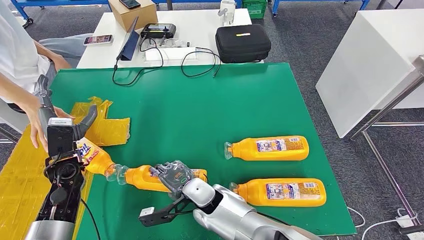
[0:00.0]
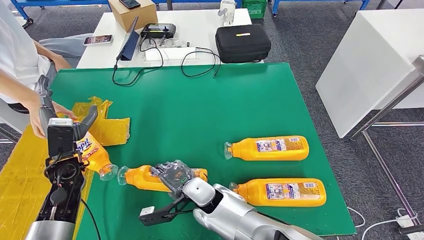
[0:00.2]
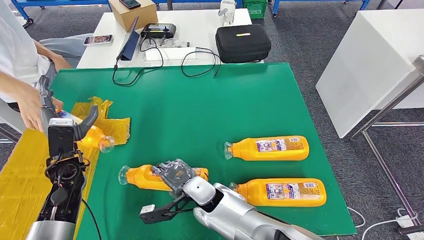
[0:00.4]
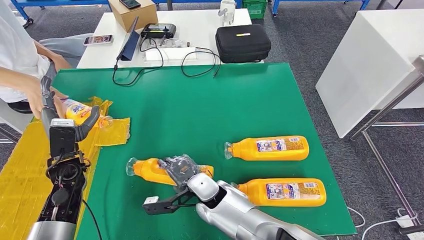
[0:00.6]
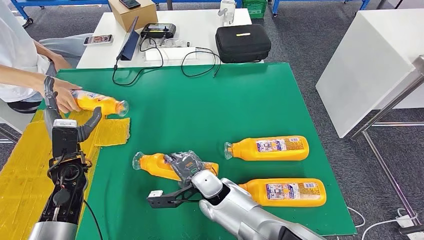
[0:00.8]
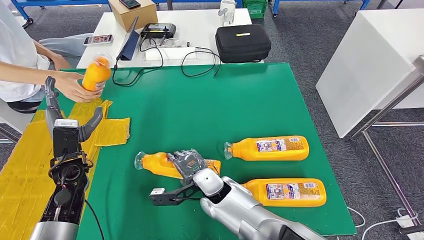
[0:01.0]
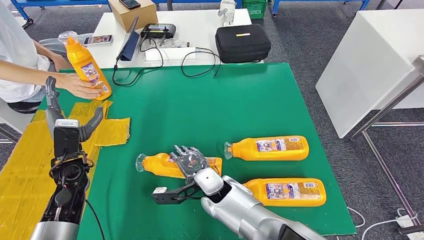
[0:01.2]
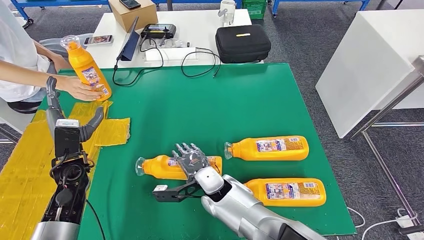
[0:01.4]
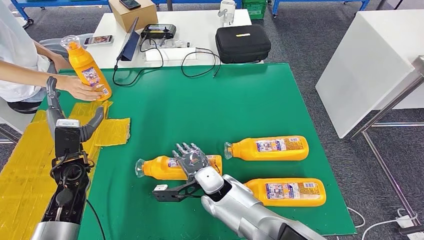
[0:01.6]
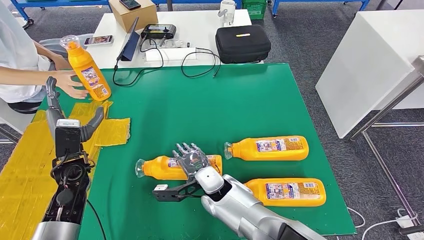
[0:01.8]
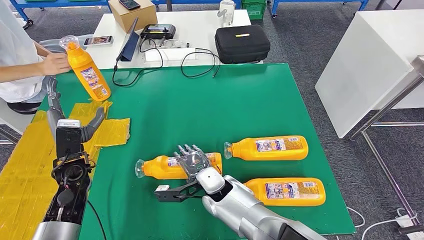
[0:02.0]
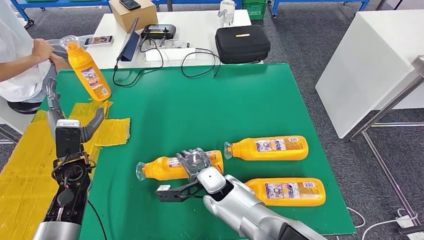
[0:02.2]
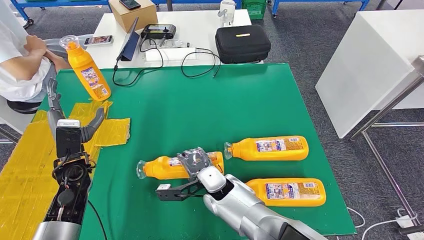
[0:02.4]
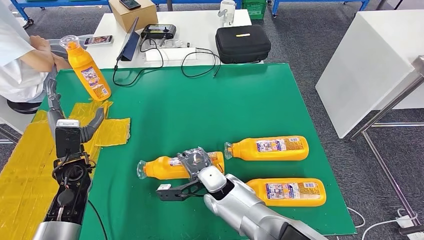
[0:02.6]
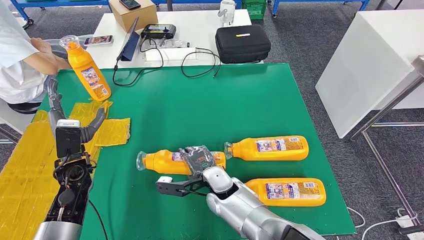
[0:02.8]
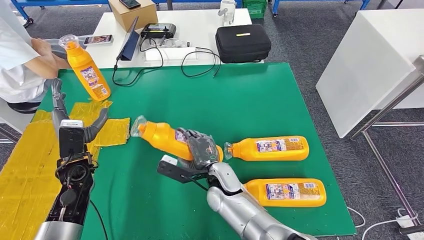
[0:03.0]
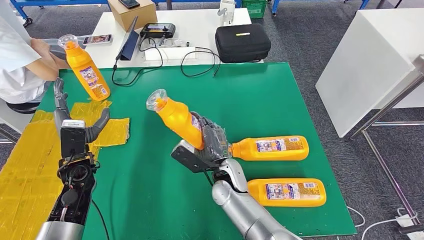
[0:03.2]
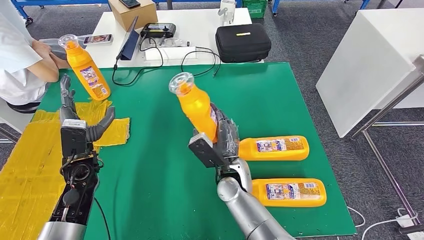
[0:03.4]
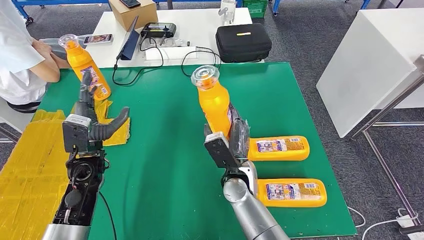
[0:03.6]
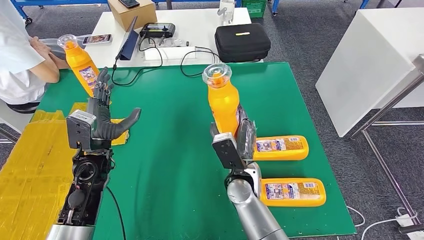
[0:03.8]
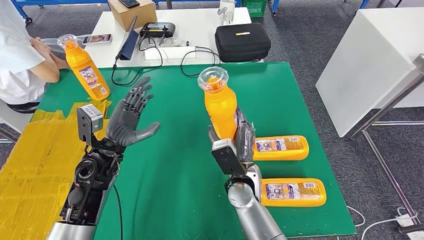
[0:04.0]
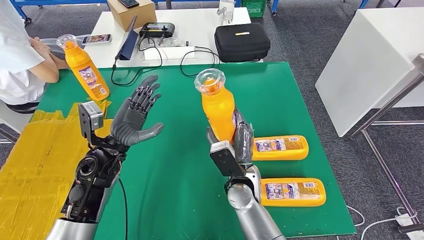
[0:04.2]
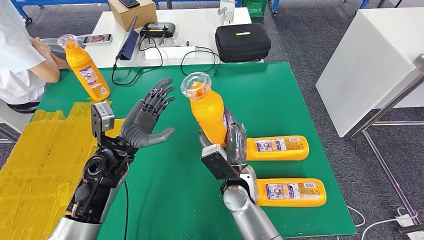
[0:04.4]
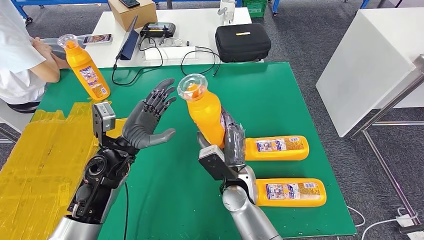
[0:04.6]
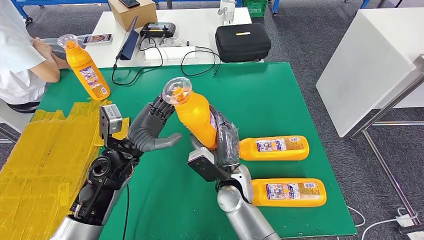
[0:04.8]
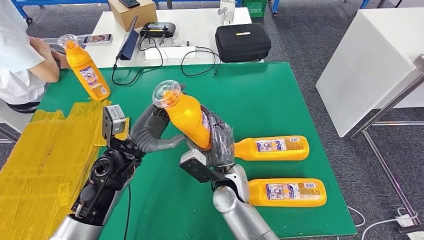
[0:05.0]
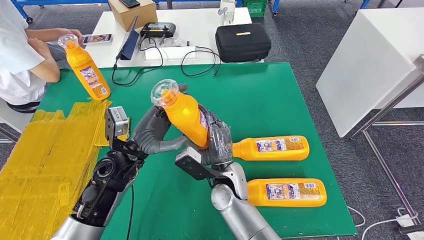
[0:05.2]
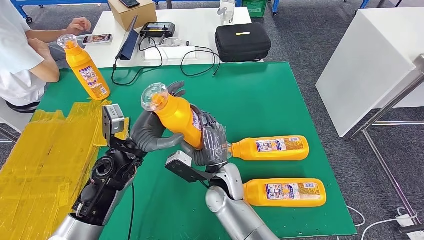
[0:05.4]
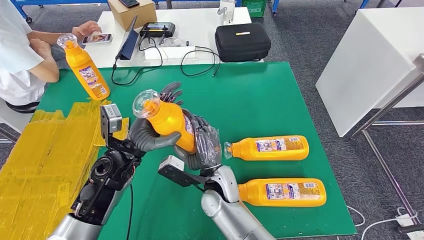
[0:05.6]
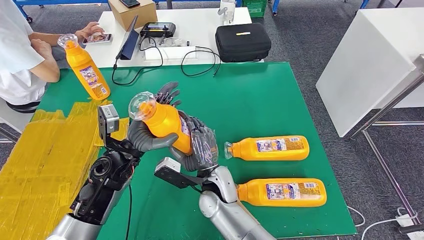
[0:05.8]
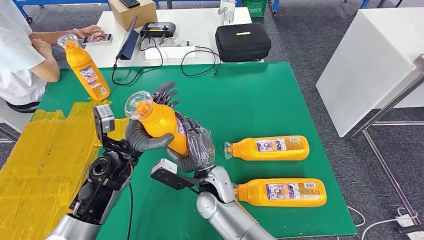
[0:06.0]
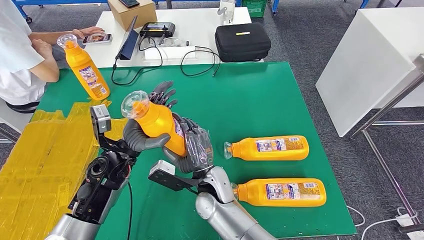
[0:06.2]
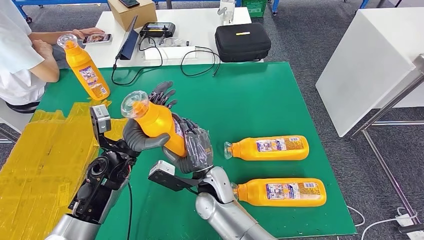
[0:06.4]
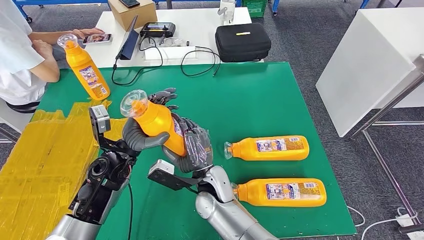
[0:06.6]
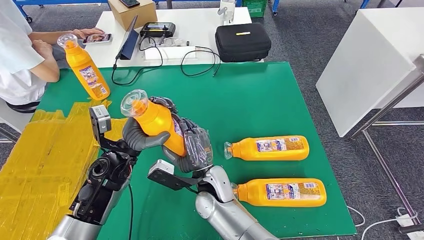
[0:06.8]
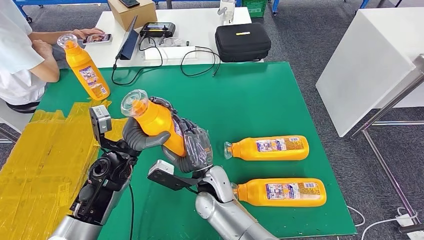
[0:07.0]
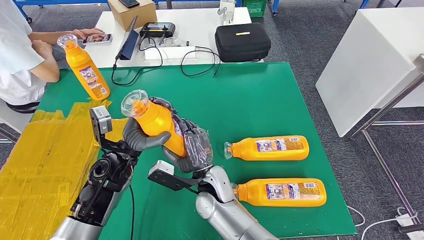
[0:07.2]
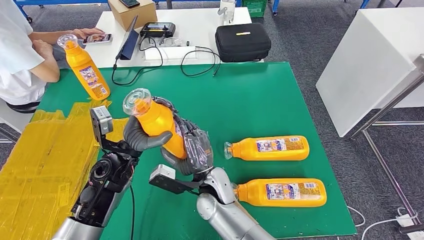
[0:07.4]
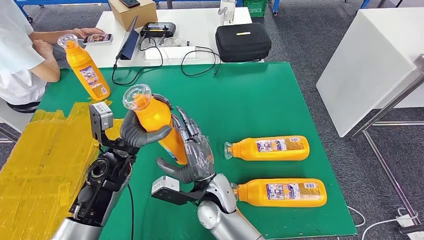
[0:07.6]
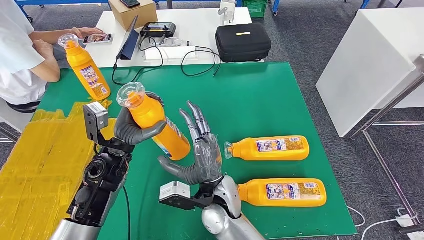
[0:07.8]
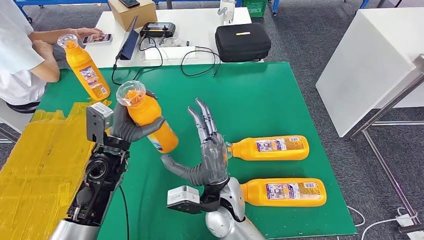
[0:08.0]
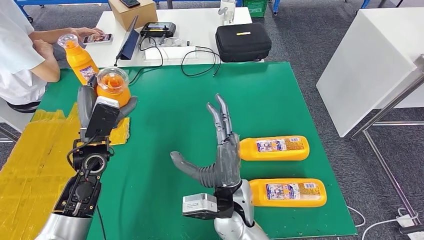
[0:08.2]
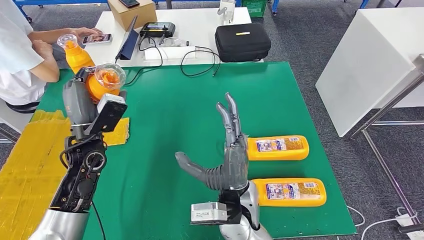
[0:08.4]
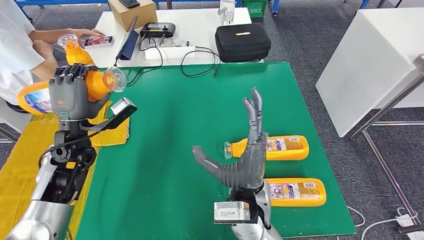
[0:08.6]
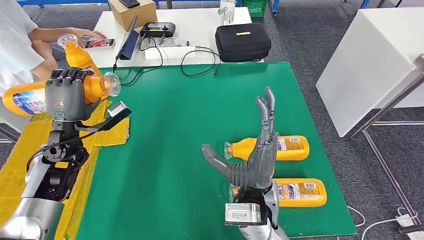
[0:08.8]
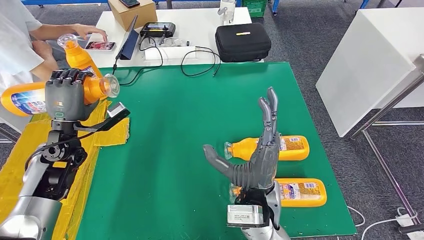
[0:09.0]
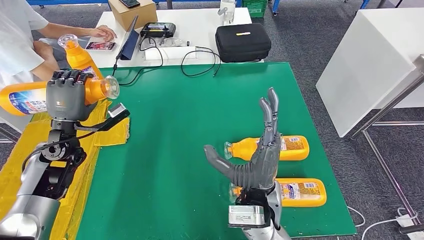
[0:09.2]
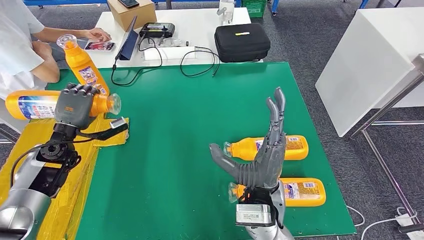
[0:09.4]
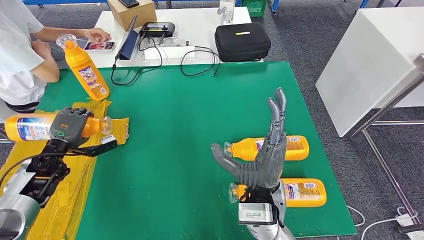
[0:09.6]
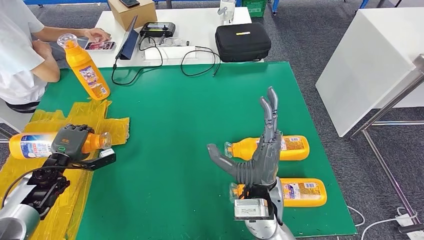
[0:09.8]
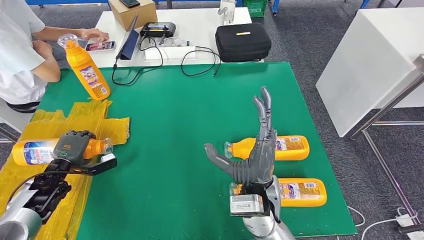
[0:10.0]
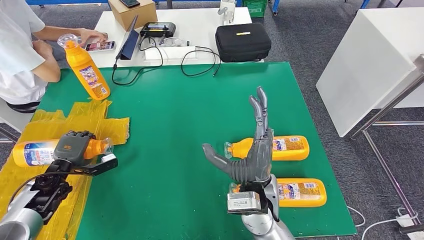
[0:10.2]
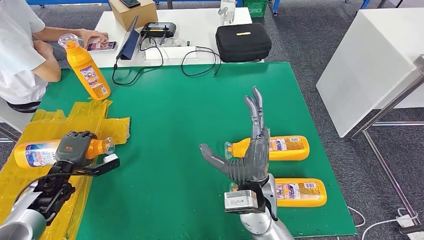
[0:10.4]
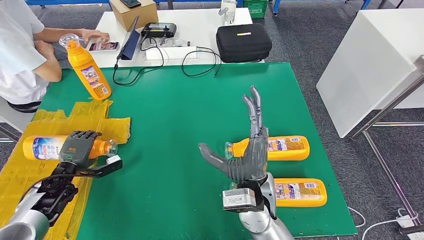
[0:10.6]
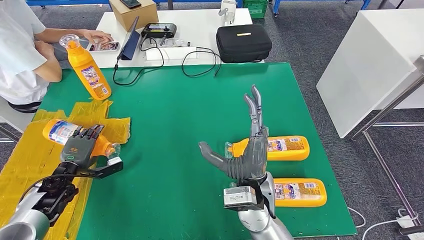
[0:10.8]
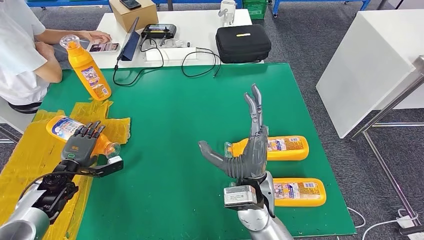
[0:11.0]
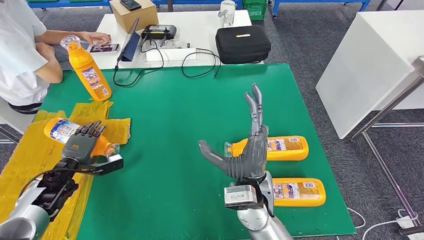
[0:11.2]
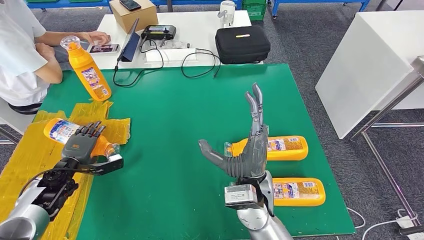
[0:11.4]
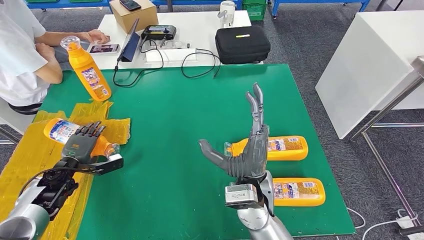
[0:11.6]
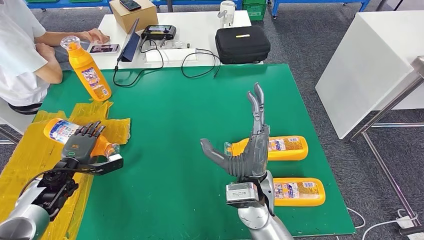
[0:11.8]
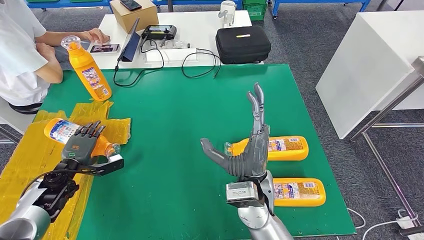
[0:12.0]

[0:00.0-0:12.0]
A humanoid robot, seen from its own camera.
Step, 0.0 to 5.8 s: Pick up the fast-moving consumer goods bottle from the table.
0.0 to 1.6 s: There are only small adjustments of the hands.
4.4 to 6.0 s: The right hand moves to the left, roughly 5 cm.
6.0 to 7.6 s: There are only small adjustments of the hands.
9.0 to 10.4 s: The left hand moves downward, to the left and backward, approximately 15 cm.
10.4 to 12.0 s: The hands stay close to where they were, moving slightly.

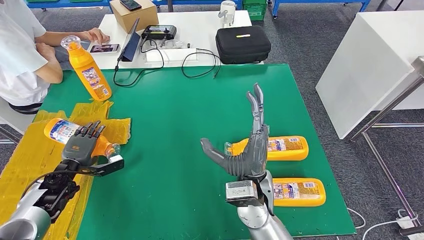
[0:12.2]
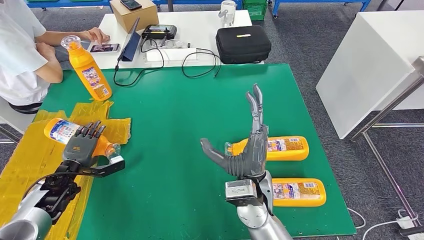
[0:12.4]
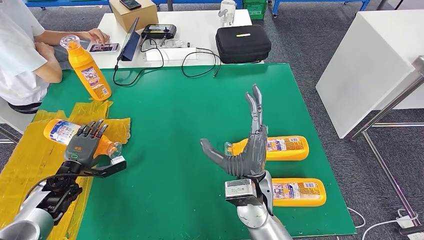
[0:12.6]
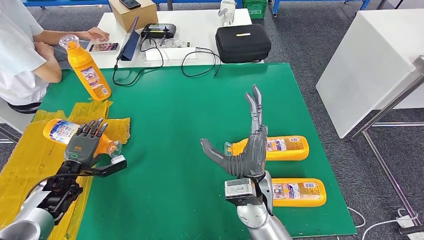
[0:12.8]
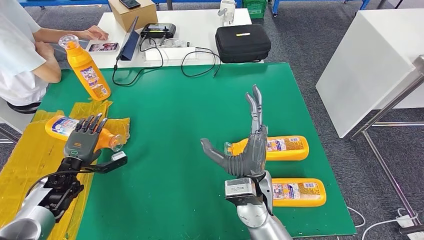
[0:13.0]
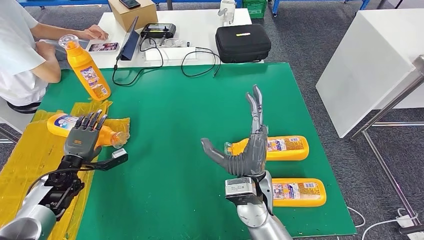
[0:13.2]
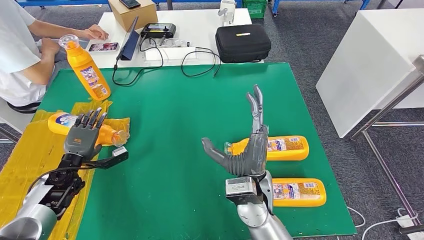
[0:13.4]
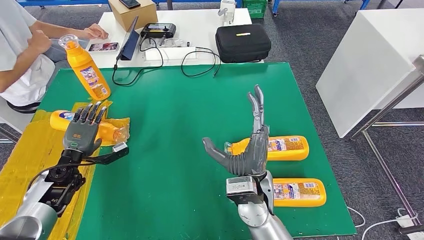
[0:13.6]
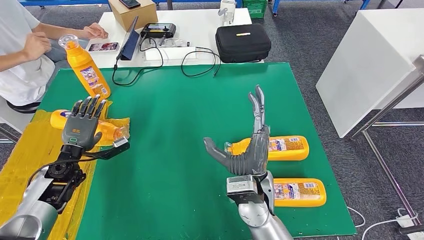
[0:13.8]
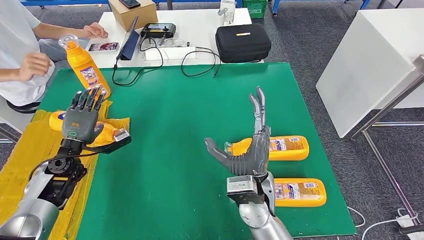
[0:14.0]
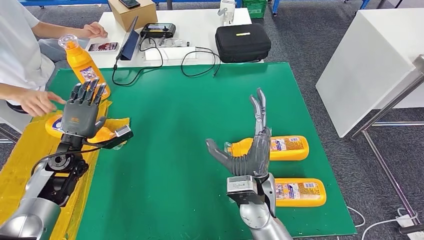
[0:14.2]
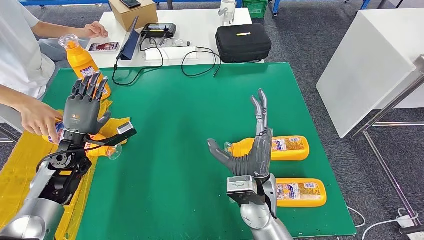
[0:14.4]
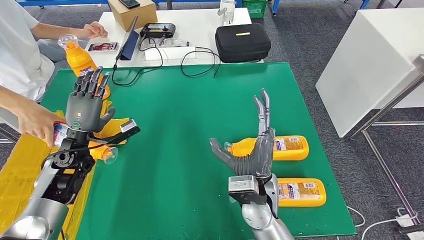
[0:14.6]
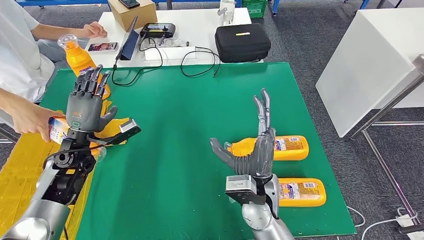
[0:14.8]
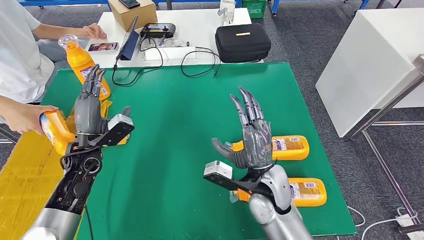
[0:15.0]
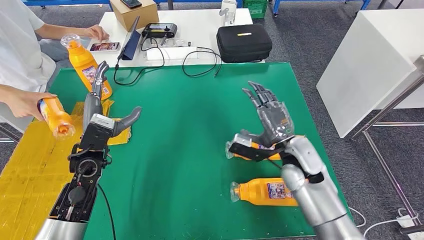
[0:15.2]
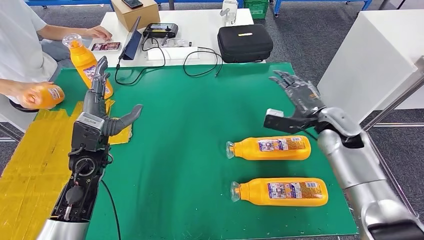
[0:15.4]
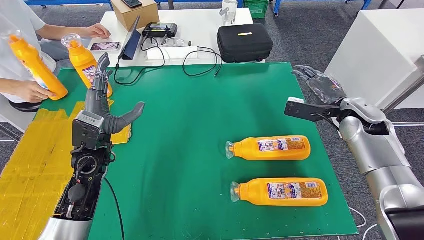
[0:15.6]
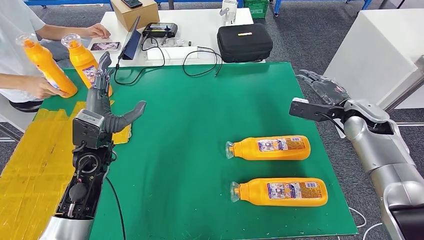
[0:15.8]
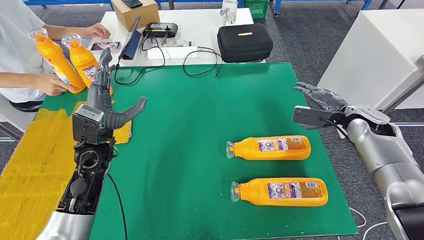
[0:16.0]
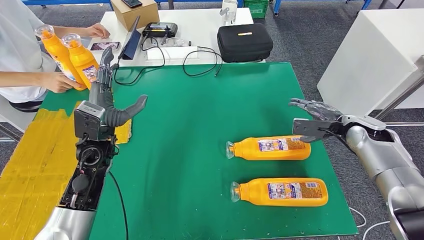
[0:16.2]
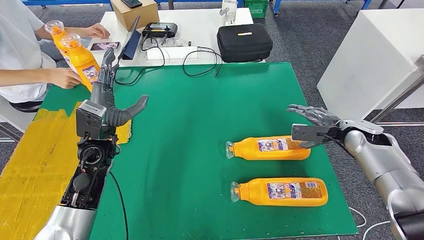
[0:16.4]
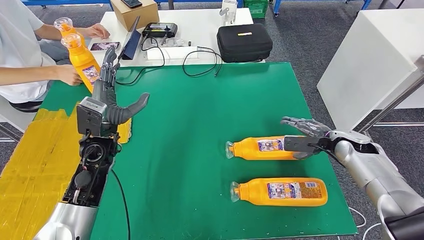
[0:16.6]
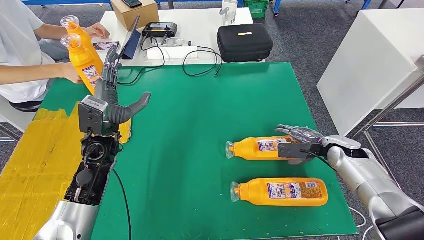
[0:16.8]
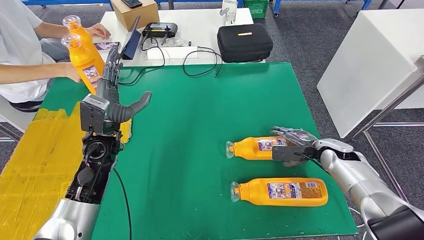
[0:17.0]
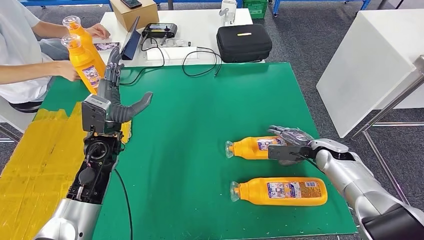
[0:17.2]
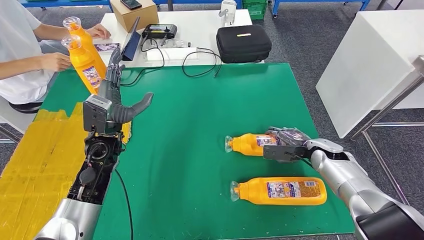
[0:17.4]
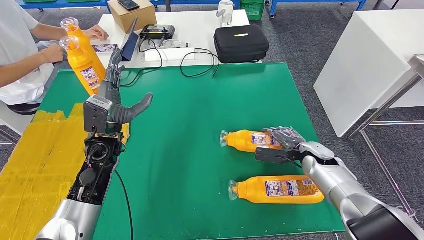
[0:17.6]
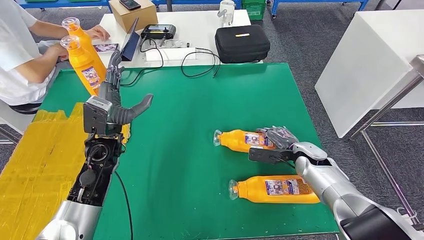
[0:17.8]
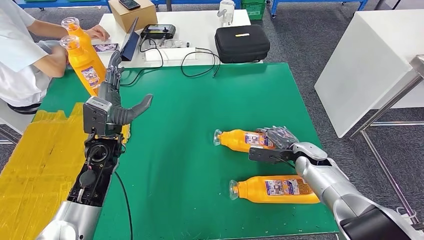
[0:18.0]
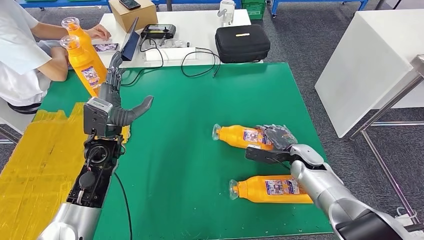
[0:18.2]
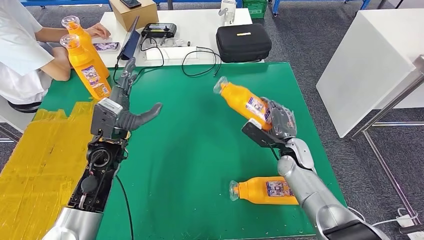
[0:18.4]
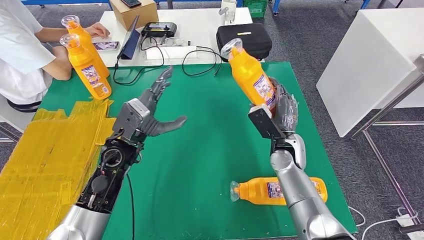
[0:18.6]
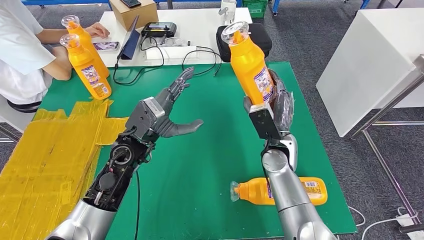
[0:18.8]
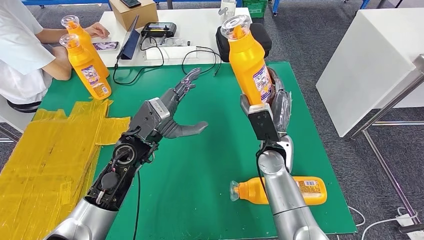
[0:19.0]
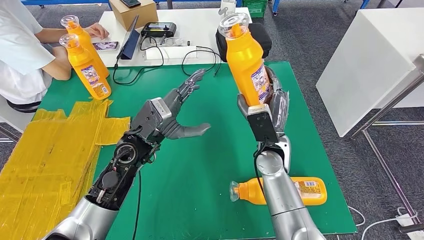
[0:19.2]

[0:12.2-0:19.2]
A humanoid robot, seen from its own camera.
12.2 to 13.6 s: The hands move only a little.
13.6 to 15.0 s: The left hand is displaced to the right and upward by about 10 cm.
